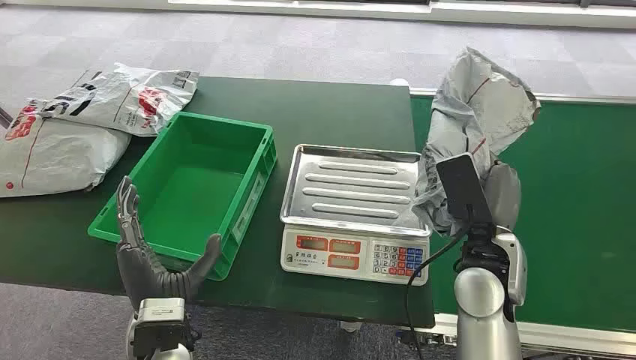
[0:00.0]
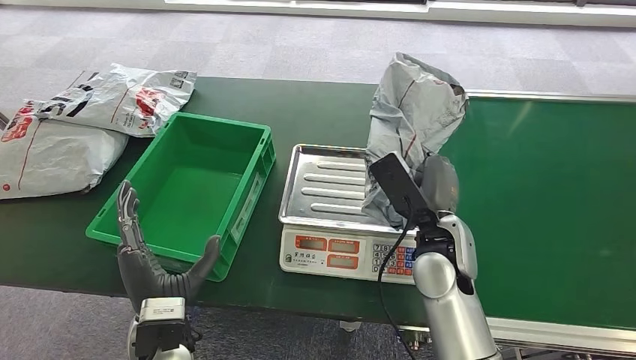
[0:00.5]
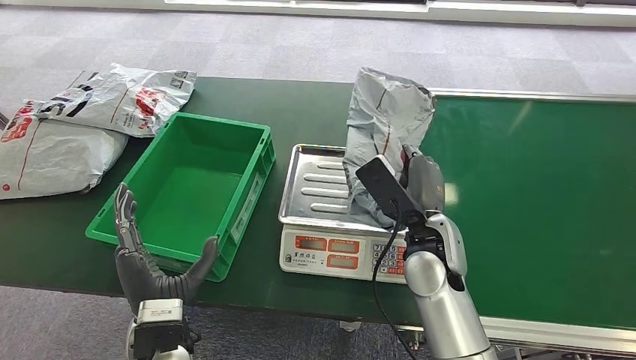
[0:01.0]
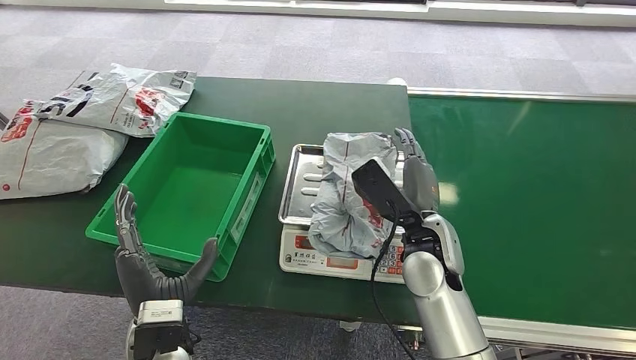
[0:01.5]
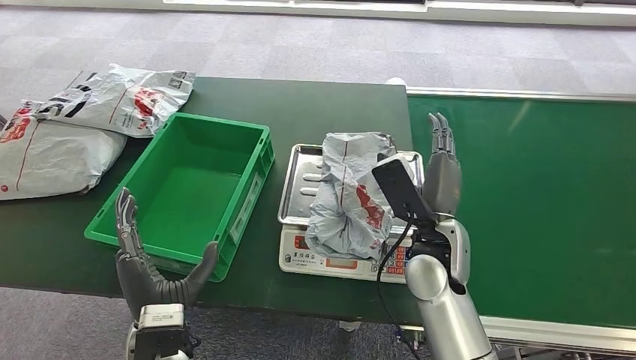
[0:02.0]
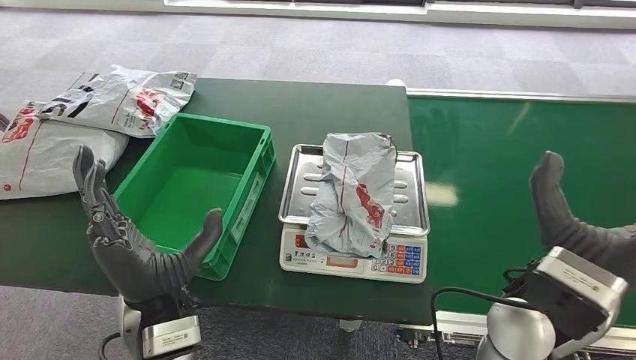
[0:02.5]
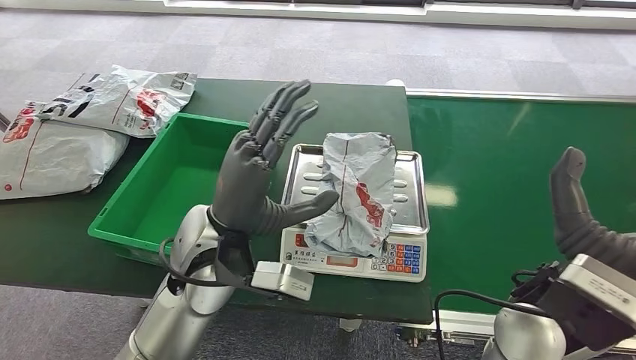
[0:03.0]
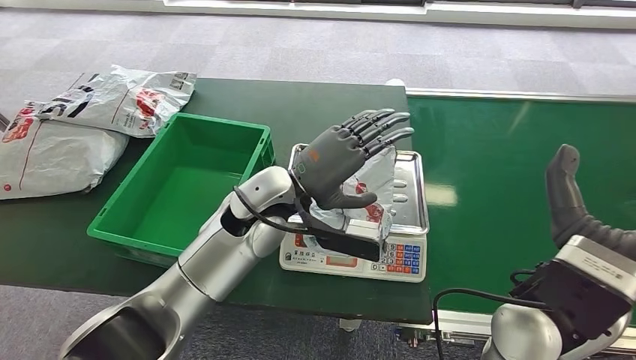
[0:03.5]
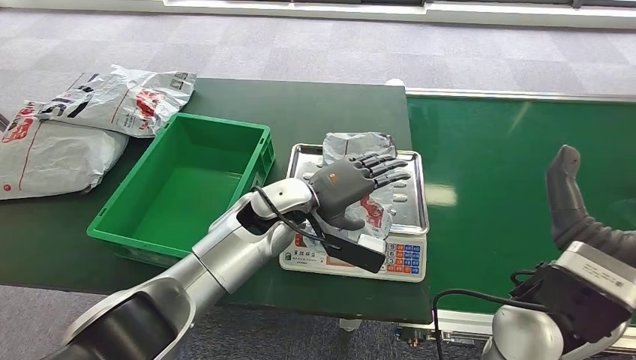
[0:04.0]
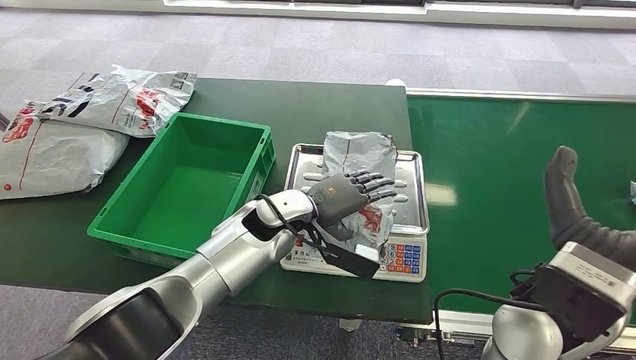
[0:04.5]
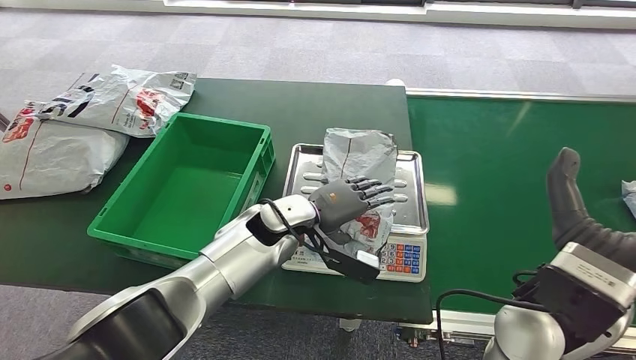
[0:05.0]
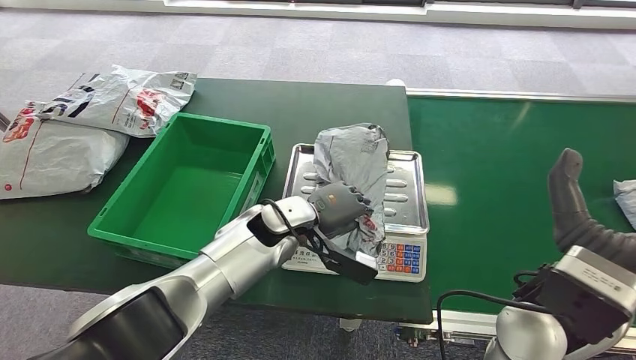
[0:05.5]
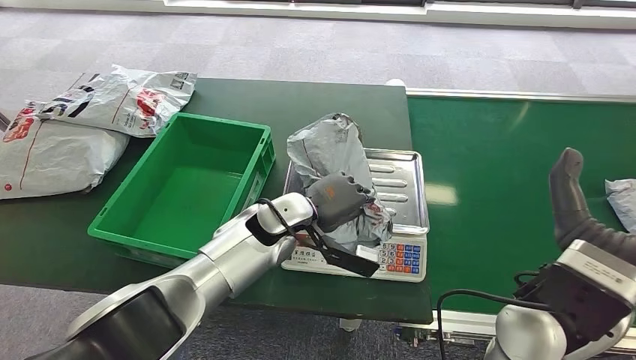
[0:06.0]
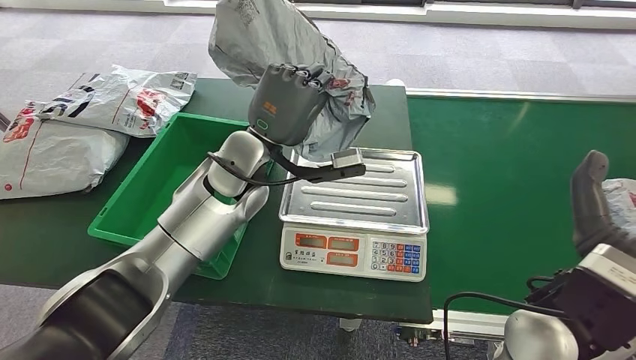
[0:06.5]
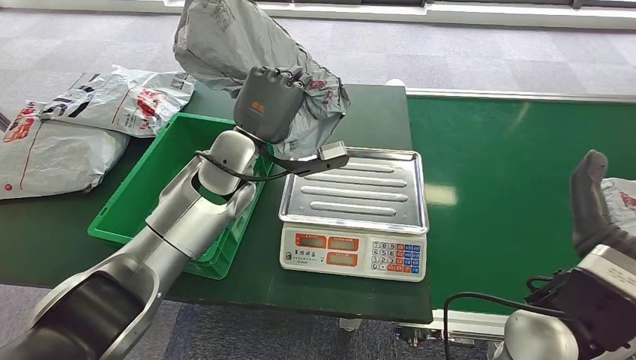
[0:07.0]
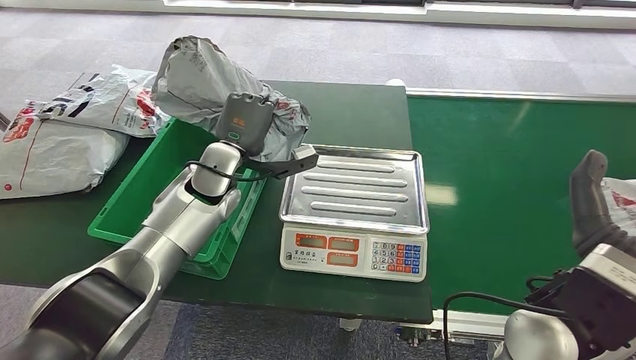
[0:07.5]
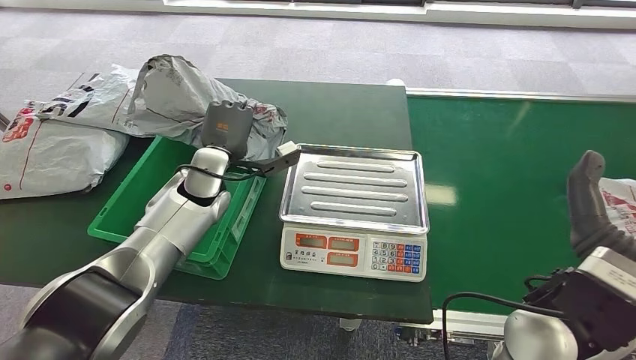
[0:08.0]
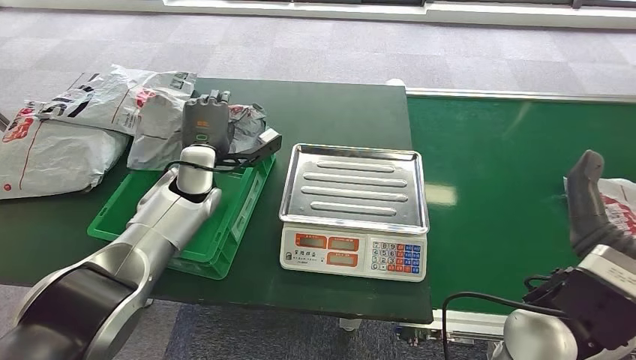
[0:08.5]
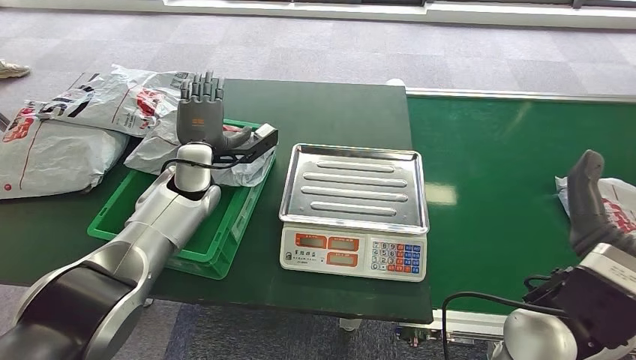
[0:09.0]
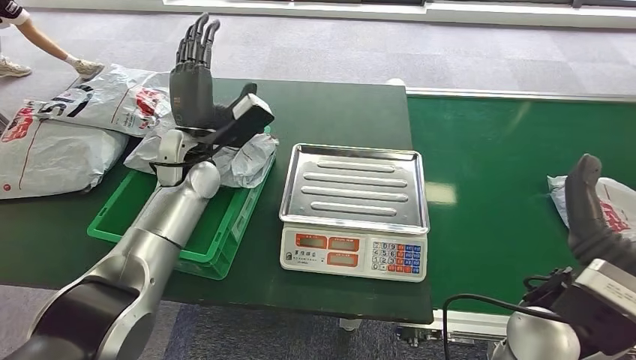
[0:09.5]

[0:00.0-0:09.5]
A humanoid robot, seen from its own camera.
Step, 0:00.5 to 0:02.5: Place the package onto the inbound machine.
Step, 0:05.5 to 0:06.0: Pick up the package from the inbound machine.
Step, 0:06.5 to 0:09.5: Place the package into the parcel locker.
0:04.0 to 0:05.5: There are only small adjustments of the hands.
